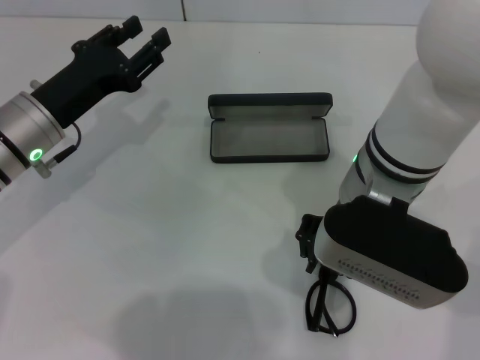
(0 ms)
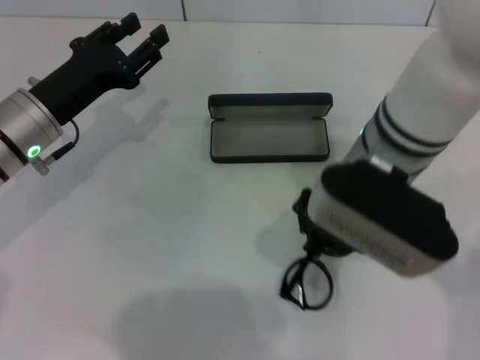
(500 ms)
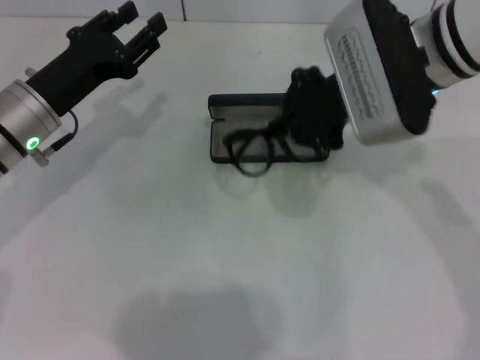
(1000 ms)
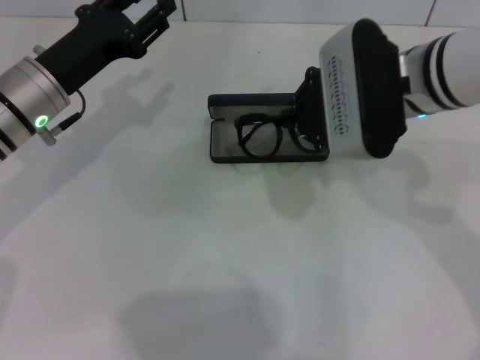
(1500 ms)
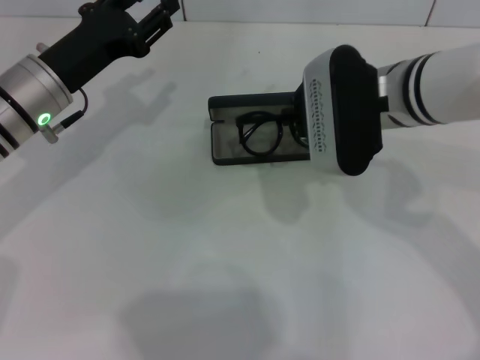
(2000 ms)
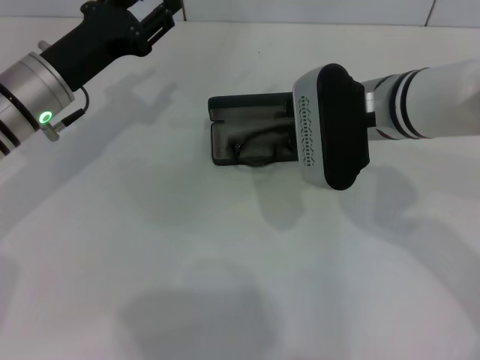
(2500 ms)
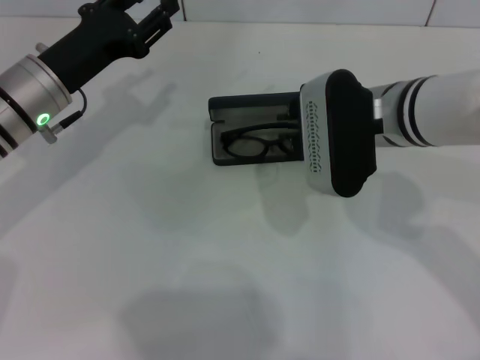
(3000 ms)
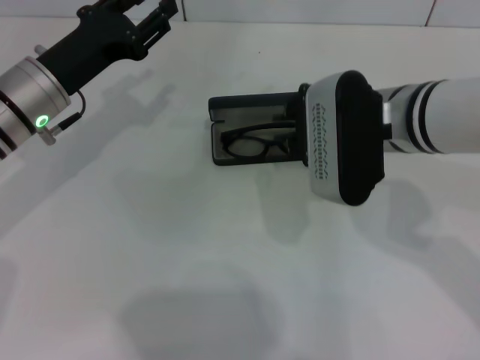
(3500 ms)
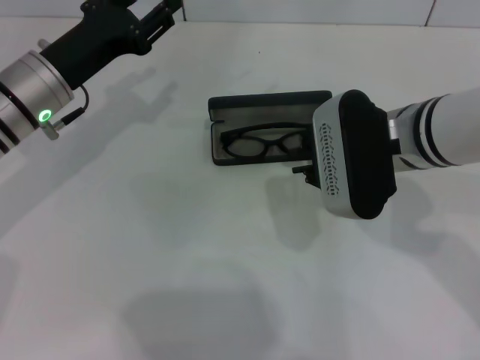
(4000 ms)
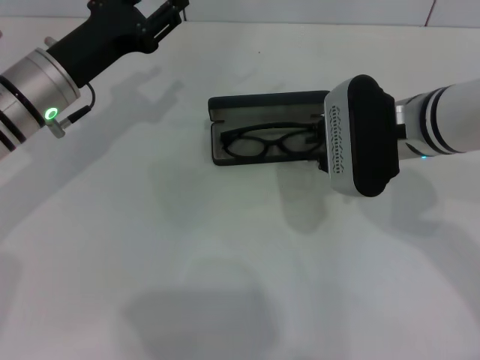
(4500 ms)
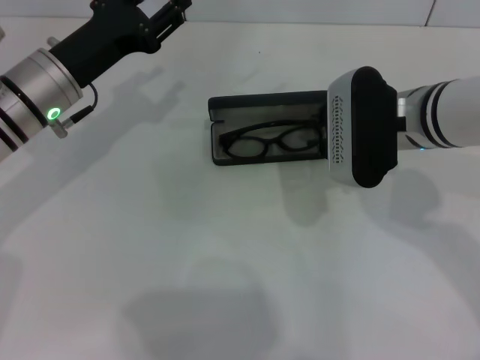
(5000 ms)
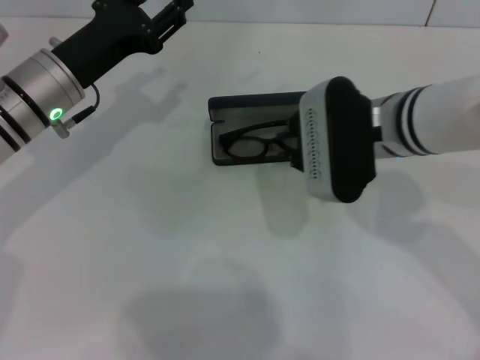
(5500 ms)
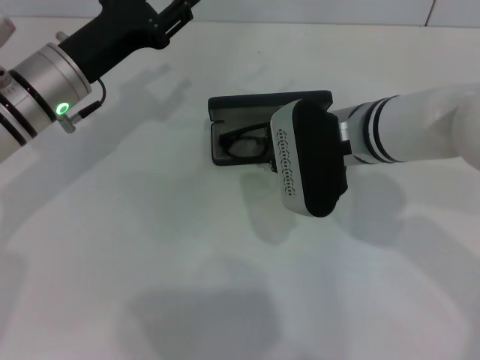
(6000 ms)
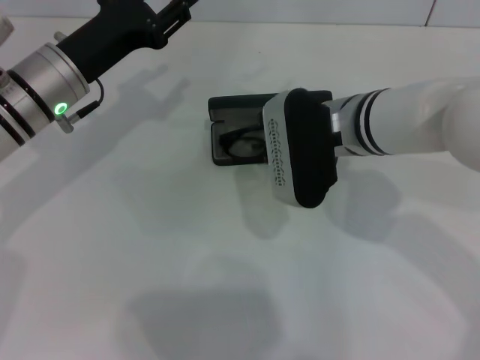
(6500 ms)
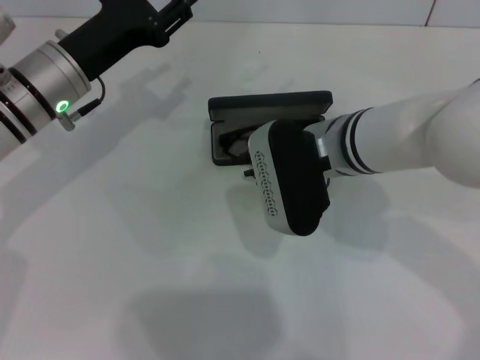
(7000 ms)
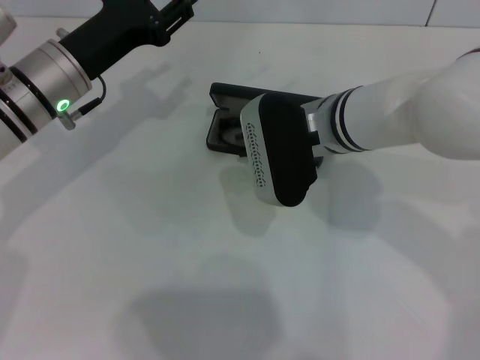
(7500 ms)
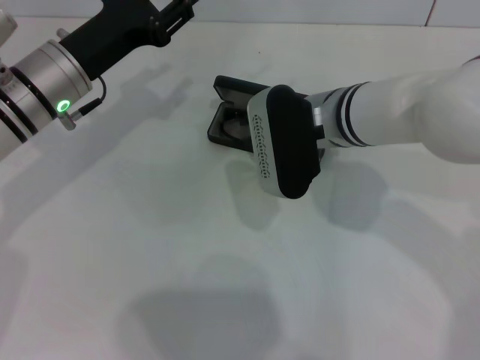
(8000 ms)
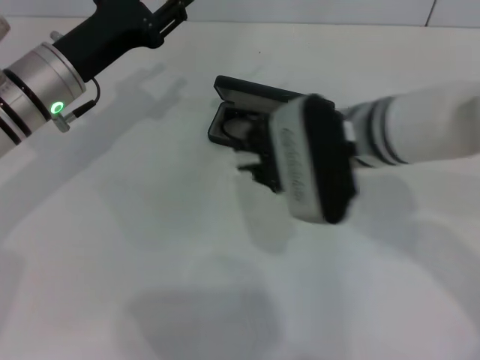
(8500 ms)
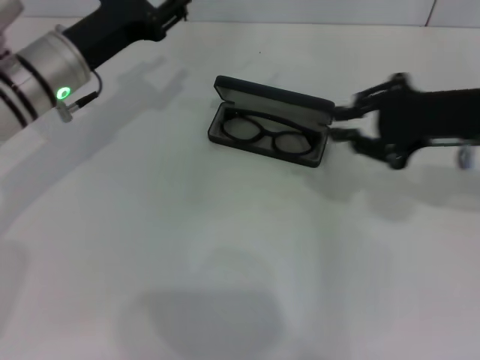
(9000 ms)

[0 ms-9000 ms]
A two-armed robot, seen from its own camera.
Step, 500 ms to 7500 ms: Put the glasses into the case with your right hand.
0 ms to 2000 ms: The right gripper is displaced forward by some 5 cm, and closes up.
2000 ms to 4500 ms: The grippers move only a little.
4500 ms to 7000 ms: The right gripper moves to the left, about 5 cm.
7000 ms to 9000 ms: The right gripper travels to the right by roughly 15 cm.

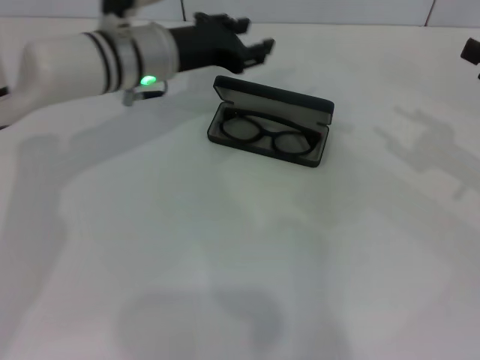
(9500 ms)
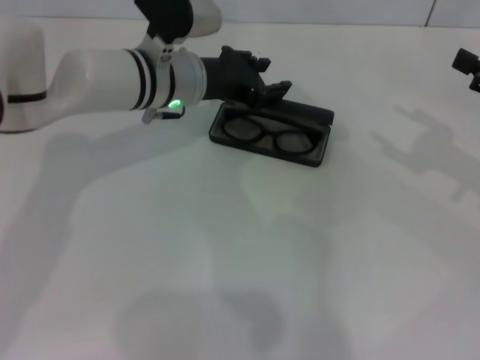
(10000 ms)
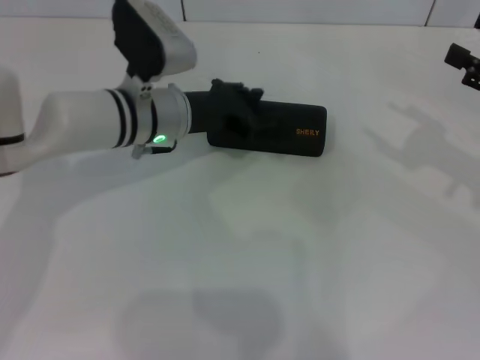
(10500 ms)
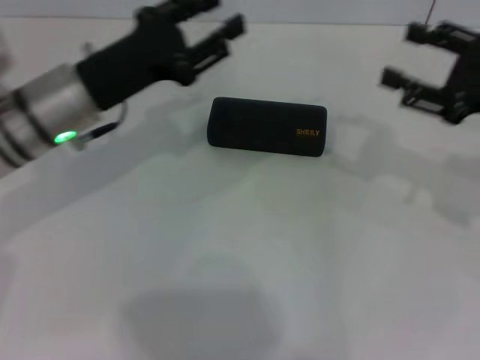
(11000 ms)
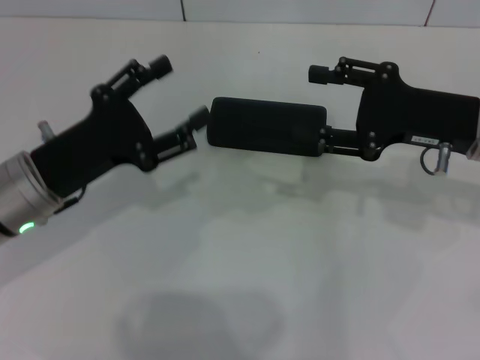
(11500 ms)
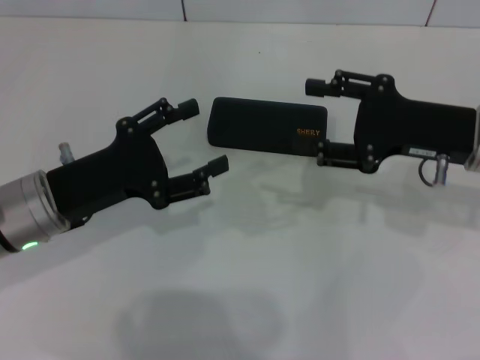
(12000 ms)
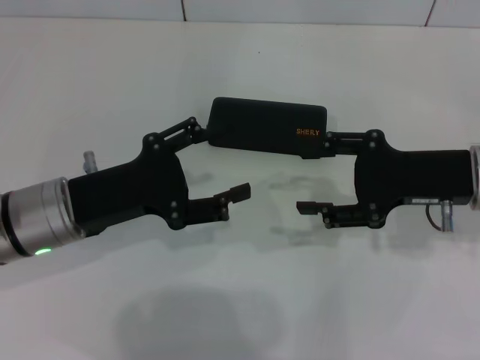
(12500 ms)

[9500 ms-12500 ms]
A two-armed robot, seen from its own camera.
9500 ms to 11000 ms: The left gripper goes roughly 10 cm backward and to the left. The right gripper heads to the left, covering roughly 5 cm, and opens its fingers.
11000 ms to 12500 ms: The right gripper is displaced to the left by approximately 5 cm, while the left gripper moves backward, approximately 5 cm, and opens.

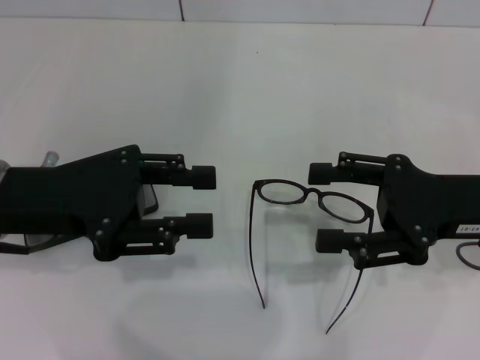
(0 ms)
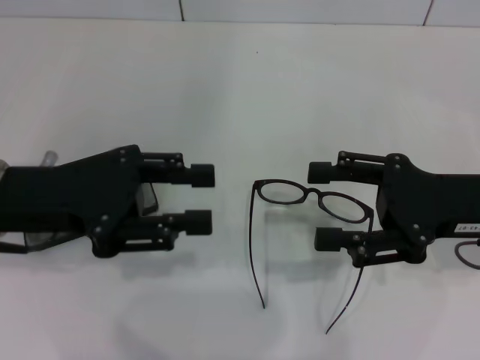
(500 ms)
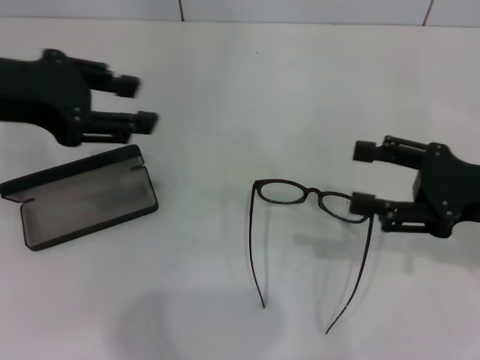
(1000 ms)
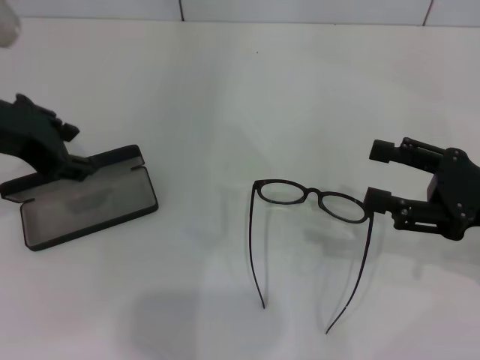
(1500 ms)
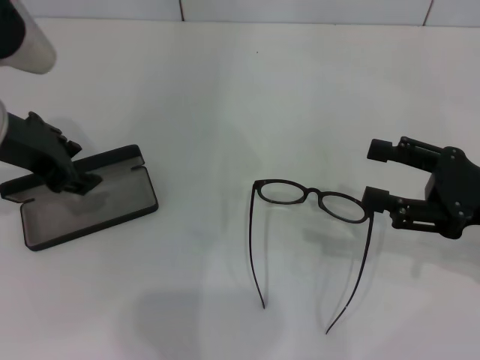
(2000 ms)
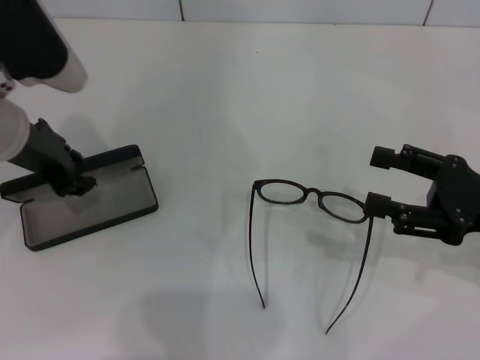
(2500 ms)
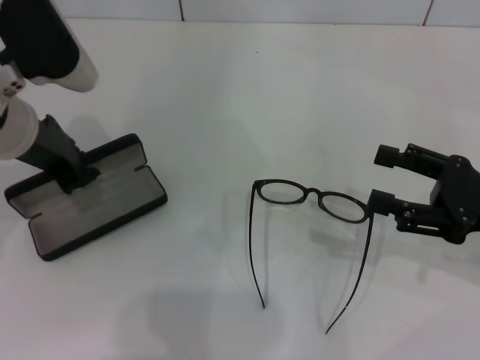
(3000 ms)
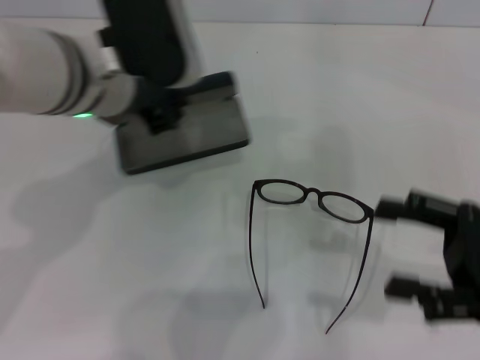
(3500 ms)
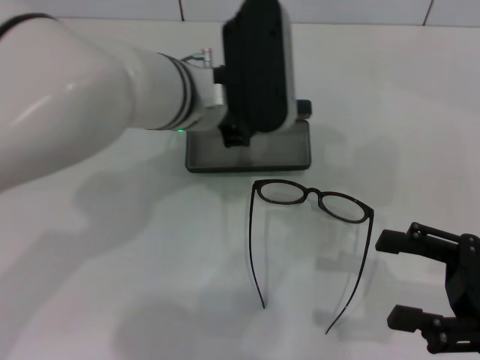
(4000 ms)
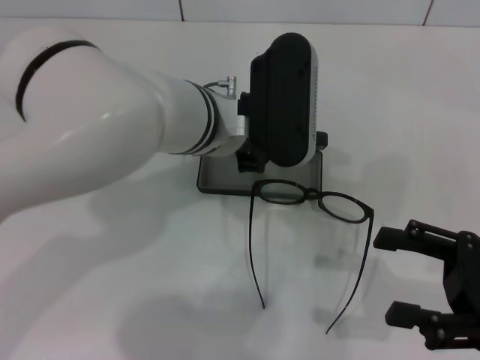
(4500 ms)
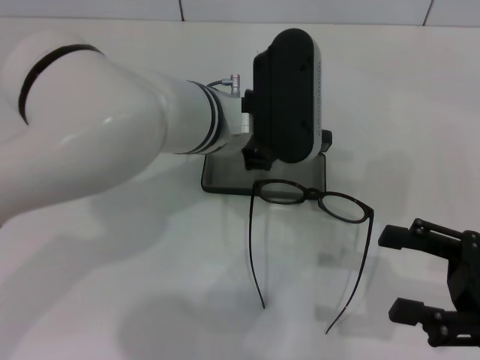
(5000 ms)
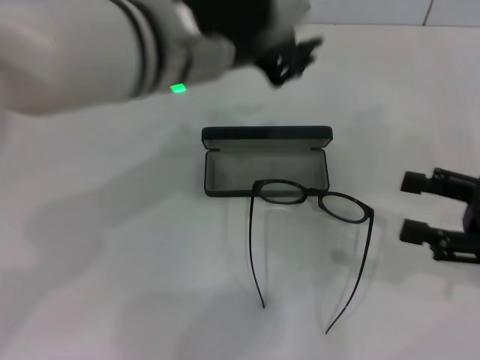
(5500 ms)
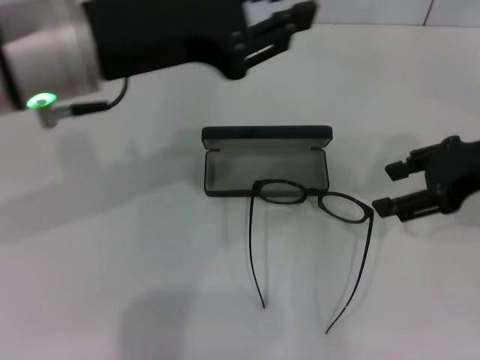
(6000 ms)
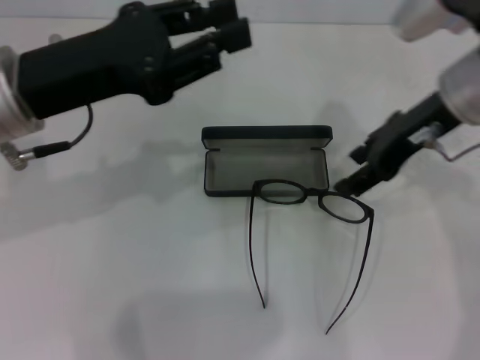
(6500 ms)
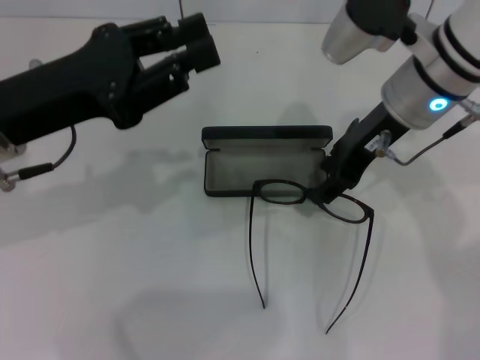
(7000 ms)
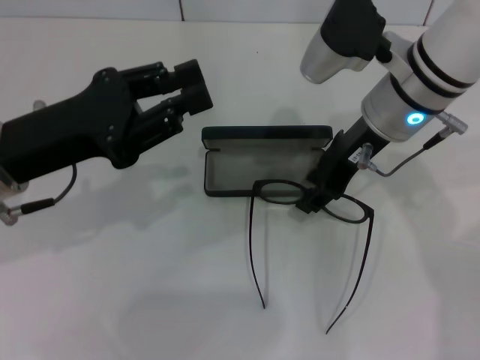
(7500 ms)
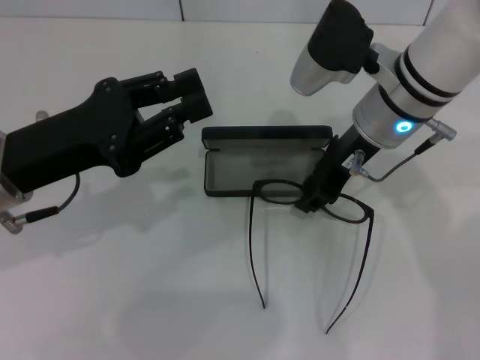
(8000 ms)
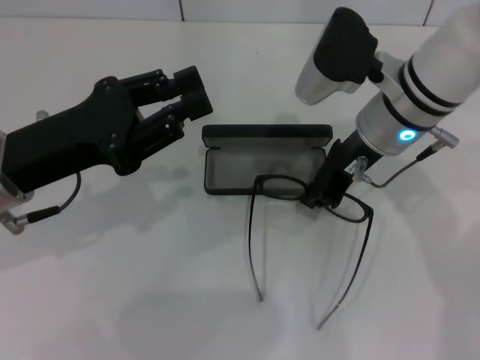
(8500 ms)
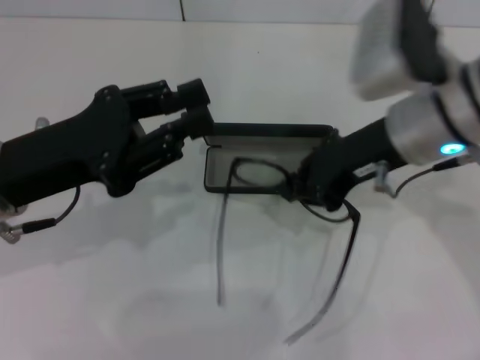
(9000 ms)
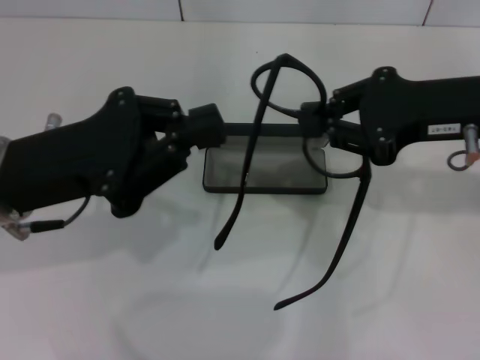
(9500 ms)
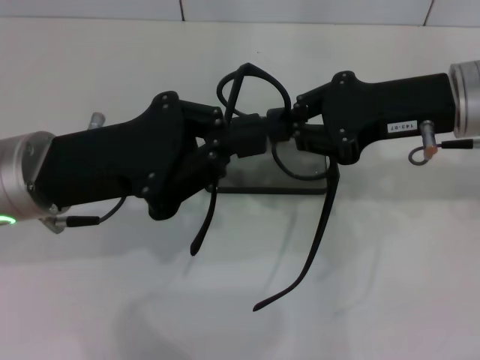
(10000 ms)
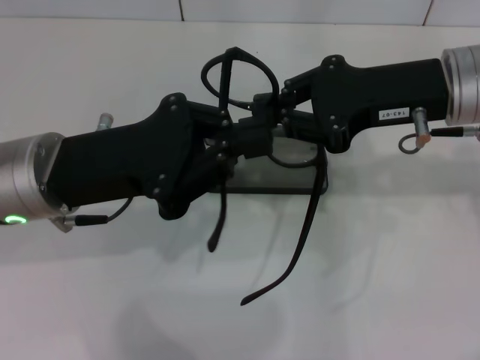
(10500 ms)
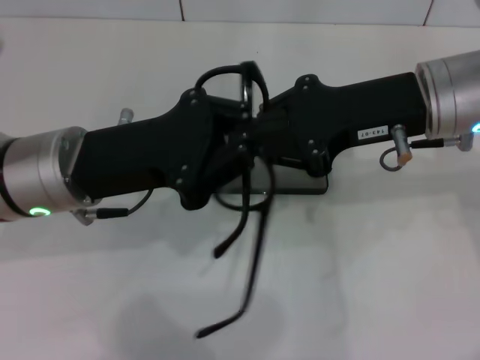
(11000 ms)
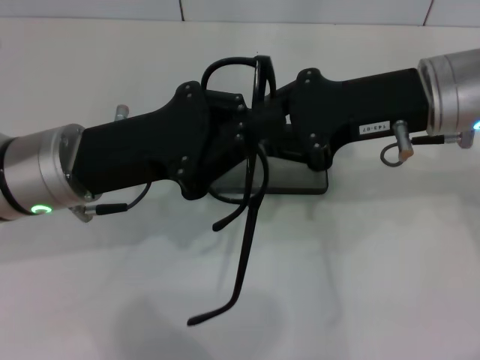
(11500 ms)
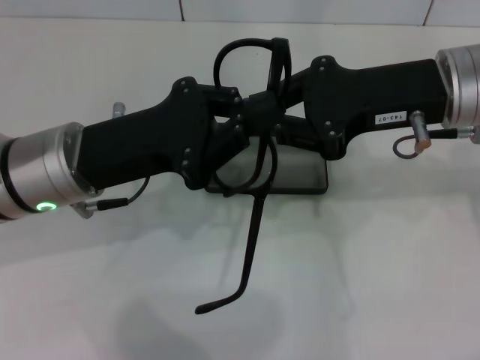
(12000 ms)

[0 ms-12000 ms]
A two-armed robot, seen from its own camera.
Step, 0 ms to 2500 ms: Grab the glasses case with your left hand.
Step, 3000 ms to 4500 ms: Place the glasses case in the center of the table with your left hand.
Step, 5000 ms to 8000 ms: Grab the eyeglass frame with your right hand.
0 ms to 2000 ms: The left gripper goes approximately 5 cm forward. Meanwhile the right gripper shifts by about 5 cm.
2000 ms to 4000 ms: The right gripper moves backward, some 5 cm; the left gripper goes some 15 cm to the right, and closes.
4000 ms to 6000 ms: The left gripper goes approximately 15 cm to the left, upward and backward, while the right gripper travels forward and upward by approximately 15 cm.
6000 ms to 8000 ms: The left gripper heads downward and to the left, covering about 15 cm; the right gripper is displaced to the left and forward by about 15 cm.
8000 ms to 10000 ms: The right gripper moves to the right, approximately 10 cm, and closes its fingers; the left gripper closes its fingers.
10000 ms to 12000 ms: The grippers stay close to where they were, moving slightly.

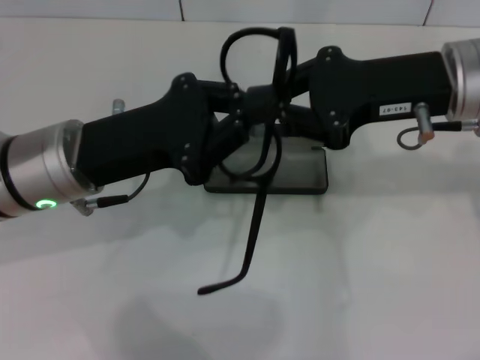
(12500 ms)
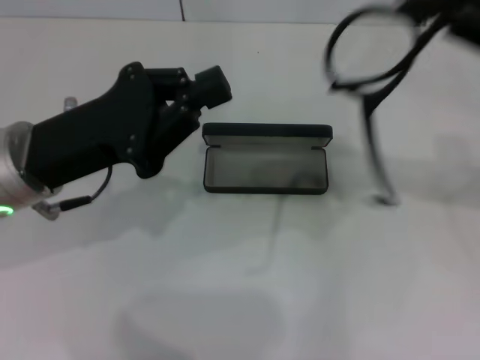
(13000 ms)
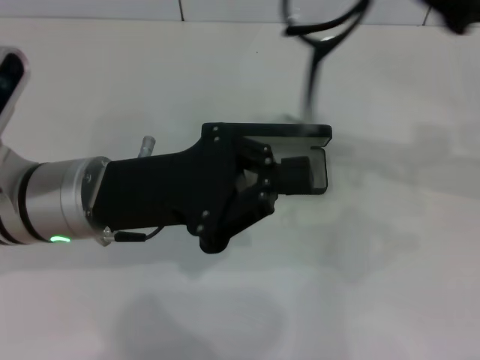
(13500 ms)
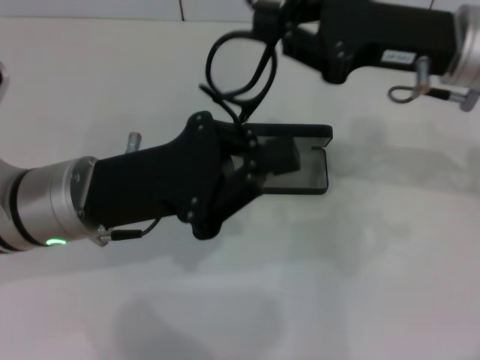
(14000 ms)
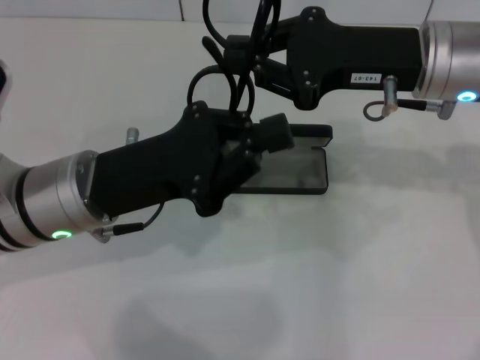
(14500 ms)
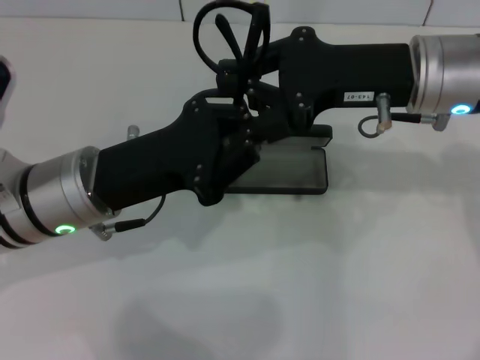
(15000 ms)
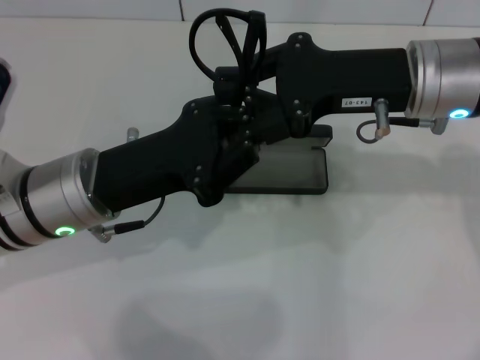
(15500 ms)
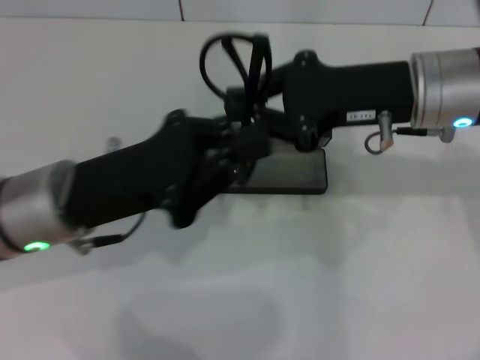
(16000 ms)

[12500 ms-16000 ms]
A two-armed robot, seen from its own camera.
Step, 12500 ms to 15000 ms: Fold the frame with your left hand.
12500 ms to 14500 ms: The right gripper reaches about 10 cm to the right, then returns.
